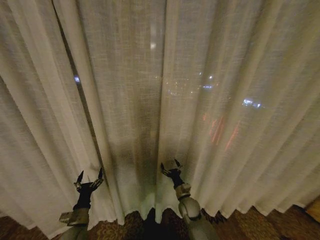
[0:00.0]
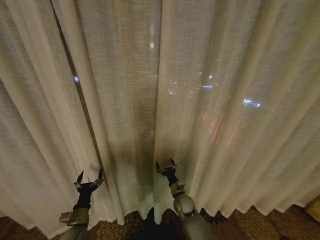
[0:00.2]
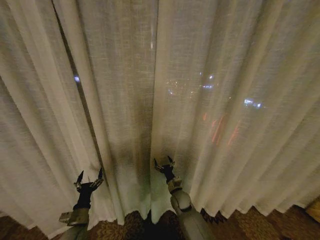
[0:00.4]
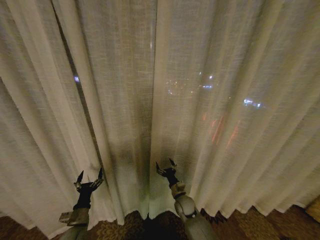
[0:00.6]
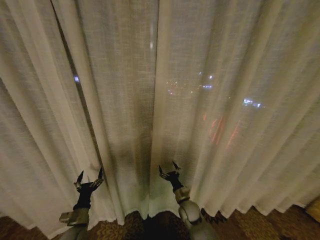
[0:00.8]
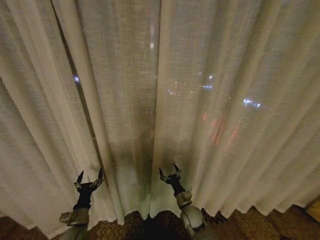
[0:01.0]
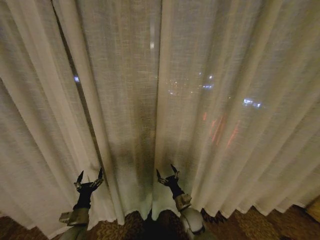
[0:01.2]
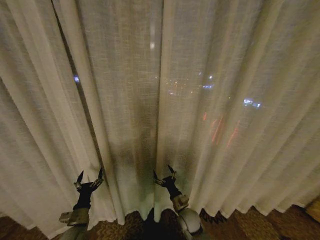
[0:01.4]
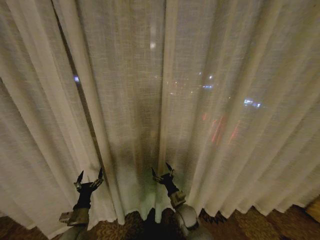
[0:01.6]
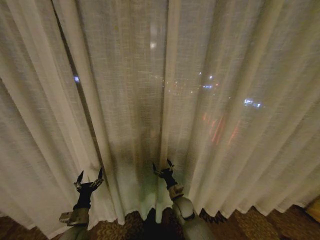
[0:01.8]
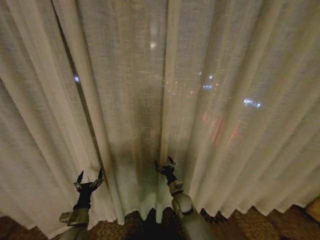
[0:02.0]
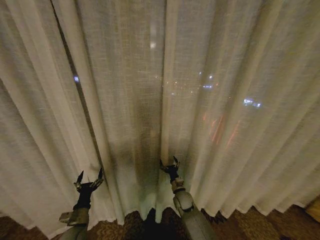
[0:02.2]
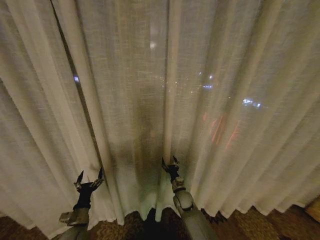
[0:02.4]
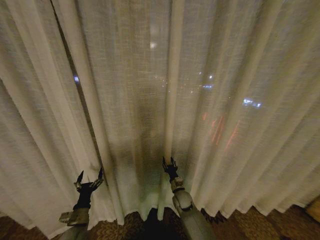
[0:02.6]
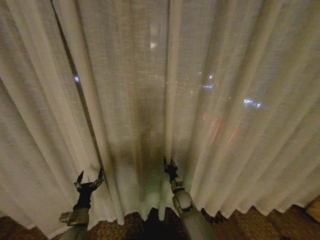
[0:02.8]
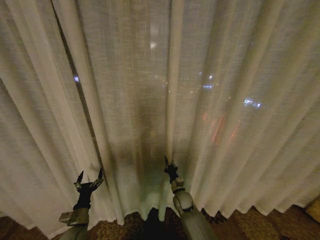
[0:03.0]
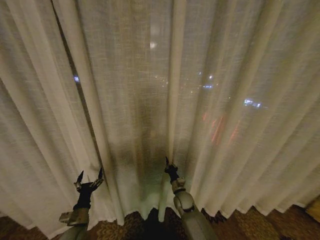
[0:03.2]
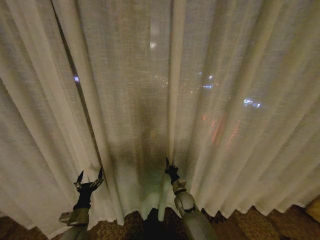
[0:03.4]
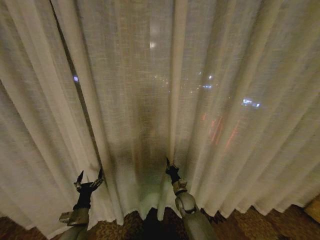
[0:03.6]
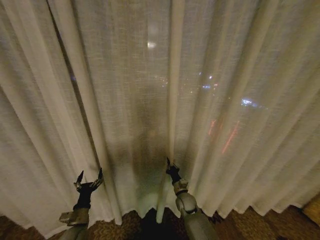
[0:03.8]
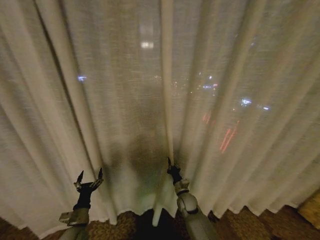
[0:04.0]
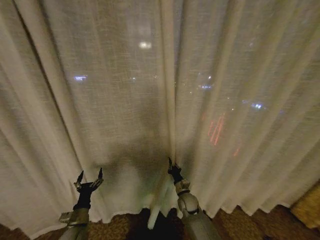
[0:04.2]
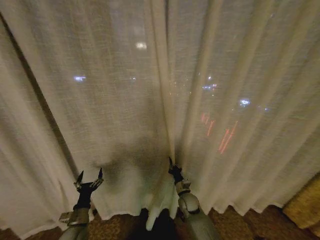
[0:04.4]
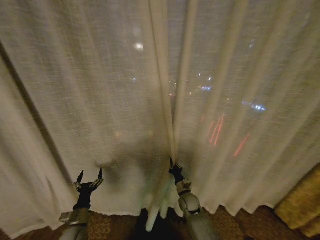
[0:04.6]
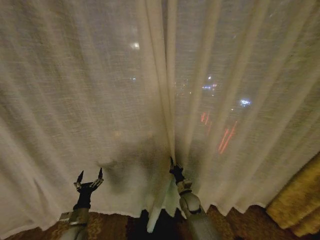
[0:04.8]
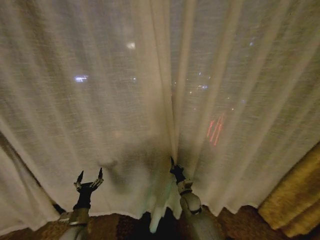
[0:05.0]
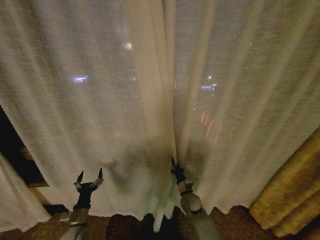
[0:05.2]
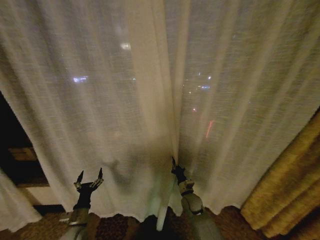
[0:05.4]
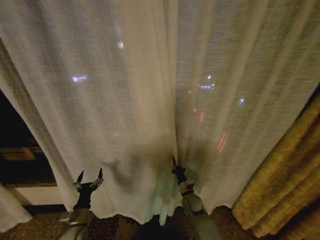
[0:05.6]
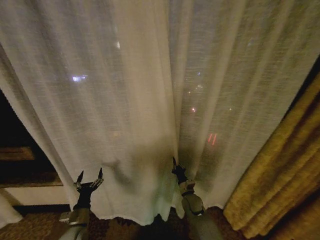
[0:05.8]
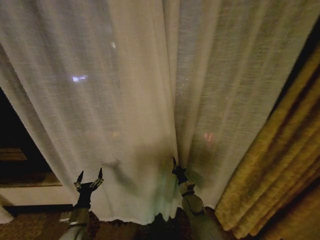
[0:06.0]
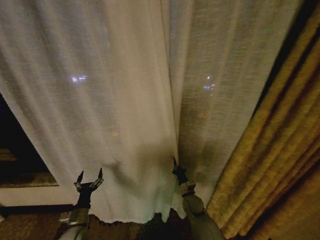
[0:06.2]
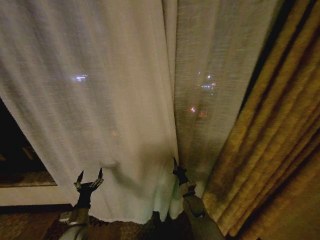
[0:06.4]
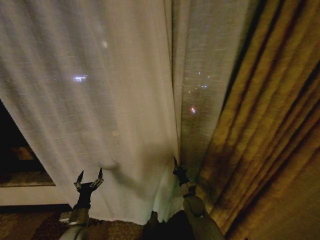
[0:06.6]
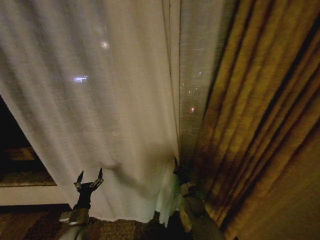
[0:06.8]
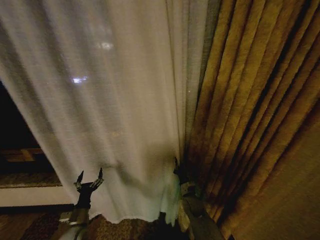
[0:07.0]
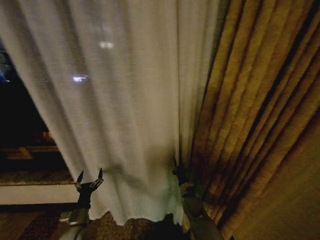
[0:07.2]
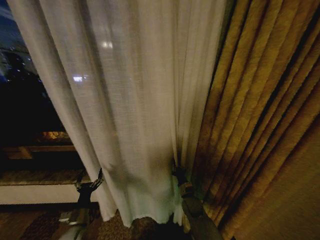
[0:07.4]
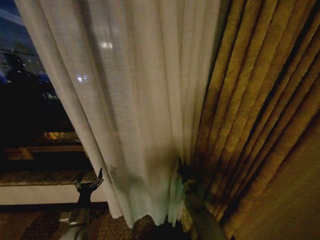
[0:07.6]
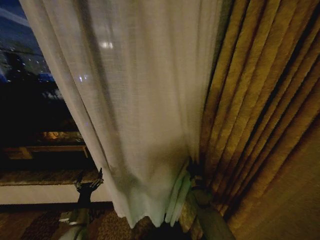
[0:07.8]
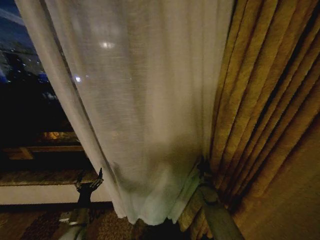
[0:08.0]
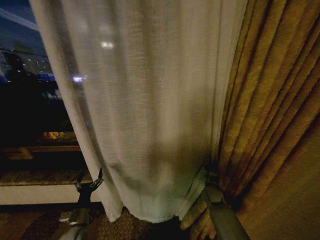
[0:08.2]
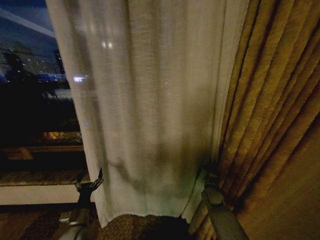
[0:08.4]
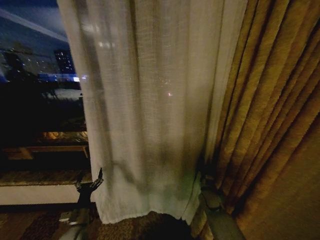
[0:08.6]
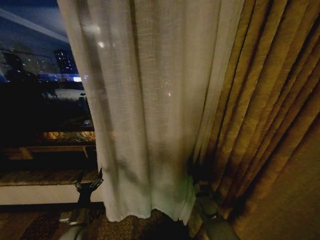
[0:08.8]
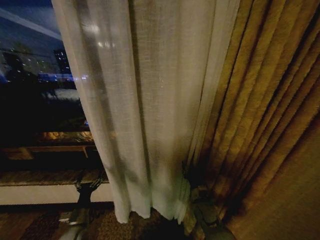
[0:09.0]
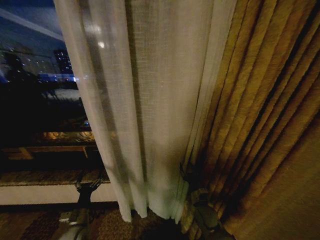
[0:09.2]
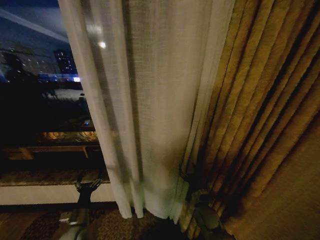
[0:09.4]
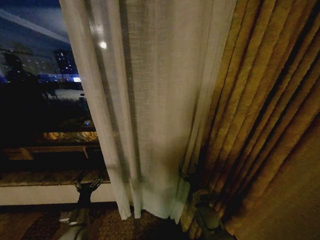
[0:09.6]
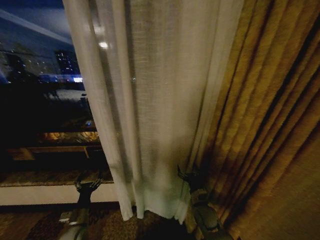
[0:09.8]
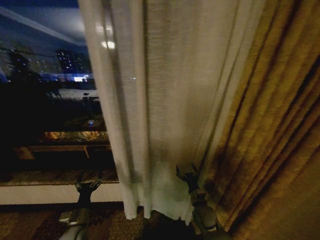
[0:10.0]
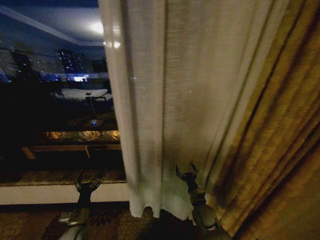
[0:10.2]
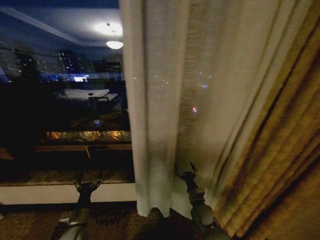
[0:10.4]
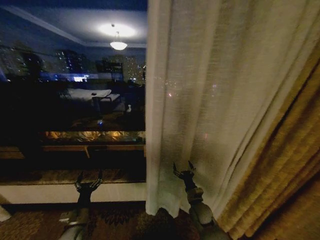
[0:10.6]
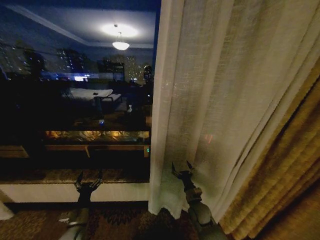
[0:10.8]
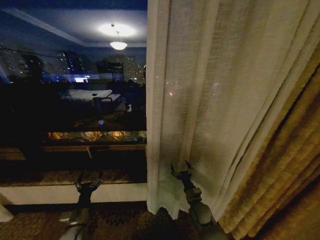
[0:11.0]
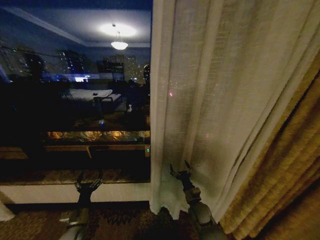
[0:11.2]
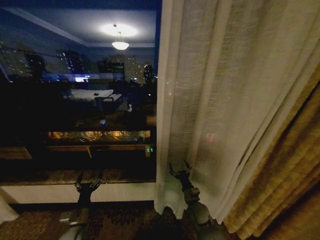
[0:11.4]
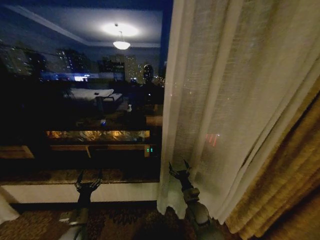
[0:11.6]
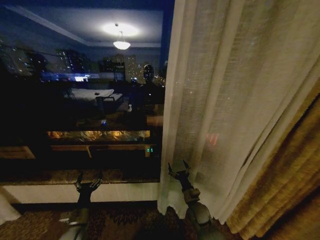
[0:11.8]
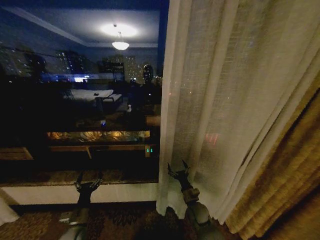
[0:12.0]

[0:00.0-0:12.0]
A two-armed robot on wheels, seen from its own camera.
Task of the whole recording: Open the curtains by pulling them apart, changing their state from closed to fully open.
0:00.0 to 0:01.6: The grippers move only a little.
0:01.6 to 0:03.0: The right gripper goes roughly 5 cm forward, and closes its fingers.
0:03.0 to 0:04.4: The grippers move only a little.
0:07.6 to 0:09.0: The right gripper is displaced backward by roughly 5 cm, travels to the right and back again, about 10 cm each way, and opens.
0:09.0 to 0:10.4: The right gripper opens.

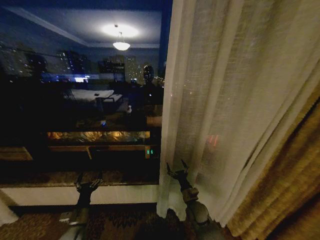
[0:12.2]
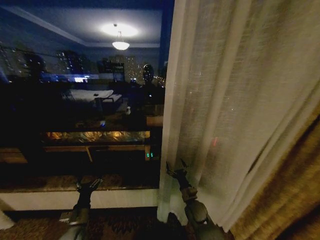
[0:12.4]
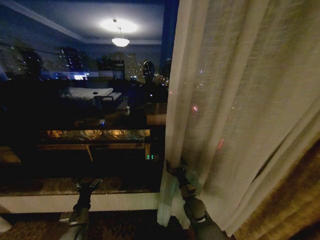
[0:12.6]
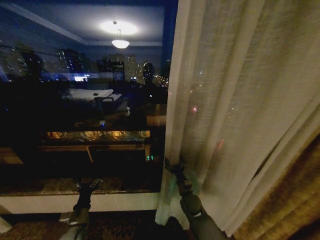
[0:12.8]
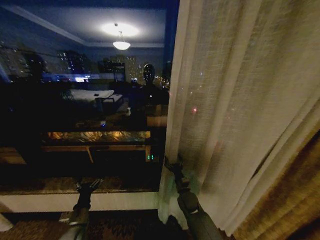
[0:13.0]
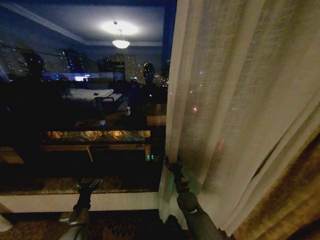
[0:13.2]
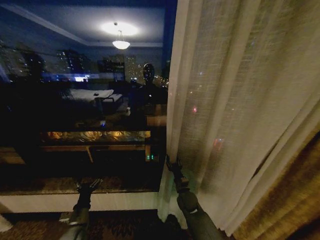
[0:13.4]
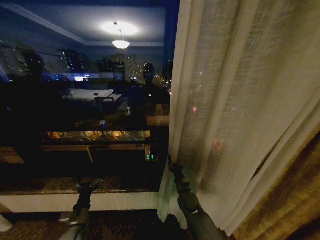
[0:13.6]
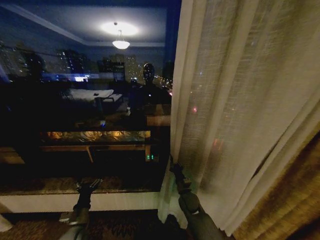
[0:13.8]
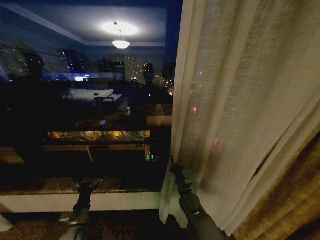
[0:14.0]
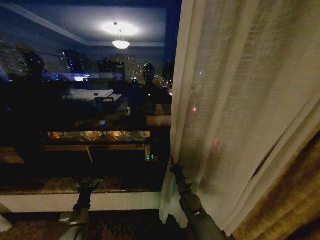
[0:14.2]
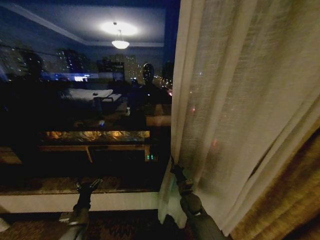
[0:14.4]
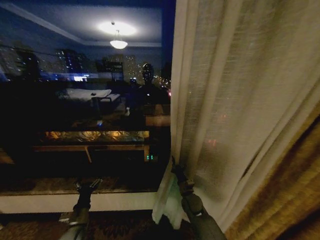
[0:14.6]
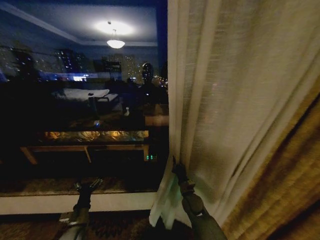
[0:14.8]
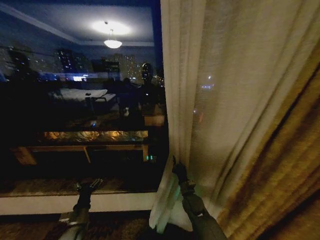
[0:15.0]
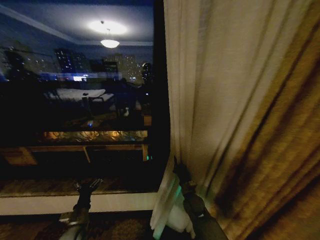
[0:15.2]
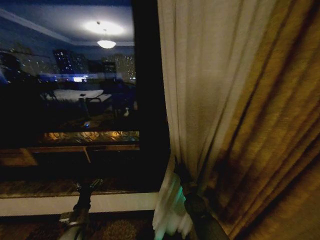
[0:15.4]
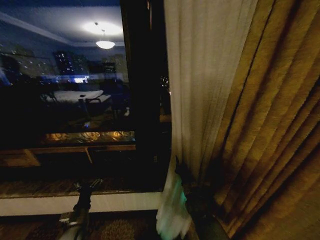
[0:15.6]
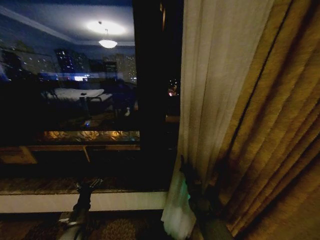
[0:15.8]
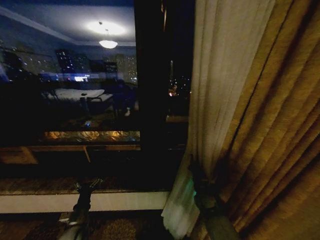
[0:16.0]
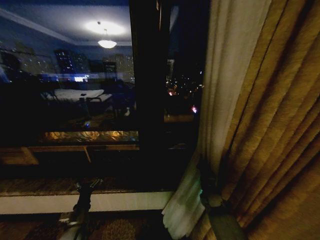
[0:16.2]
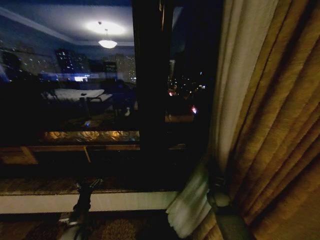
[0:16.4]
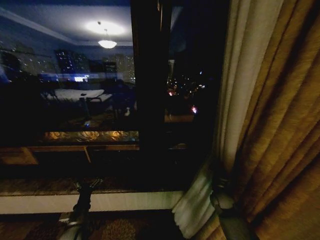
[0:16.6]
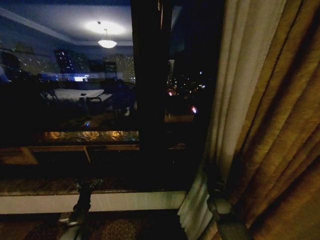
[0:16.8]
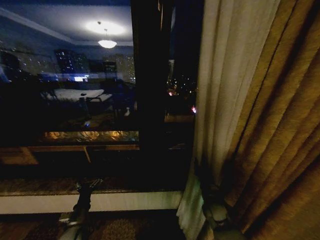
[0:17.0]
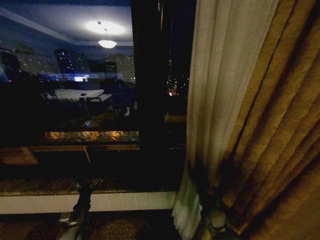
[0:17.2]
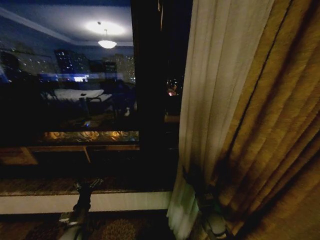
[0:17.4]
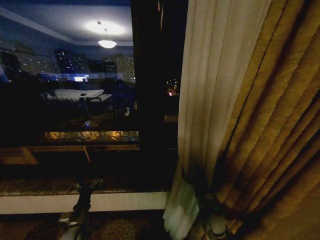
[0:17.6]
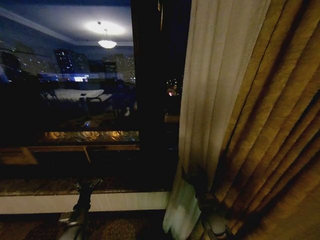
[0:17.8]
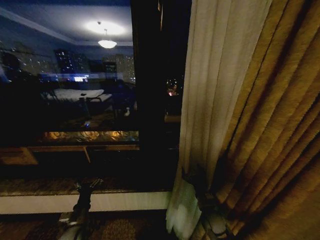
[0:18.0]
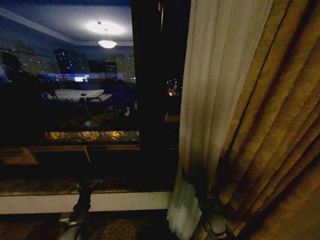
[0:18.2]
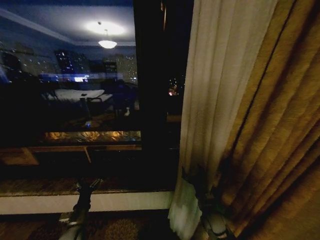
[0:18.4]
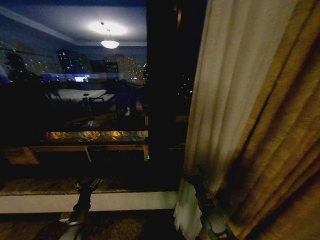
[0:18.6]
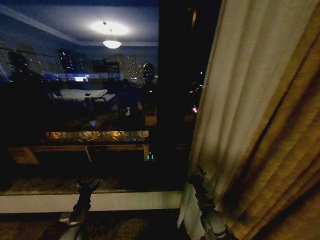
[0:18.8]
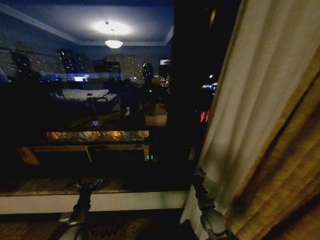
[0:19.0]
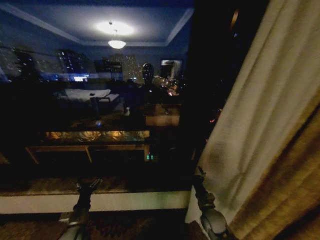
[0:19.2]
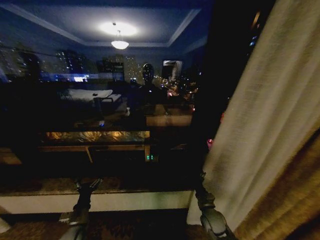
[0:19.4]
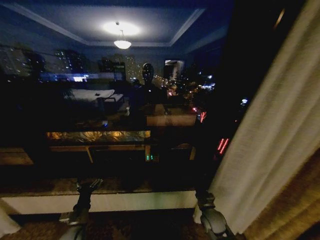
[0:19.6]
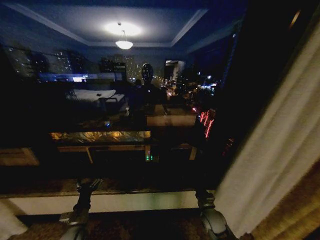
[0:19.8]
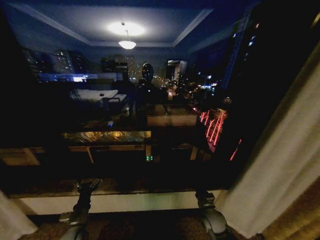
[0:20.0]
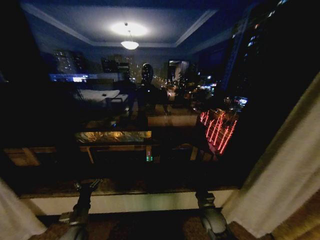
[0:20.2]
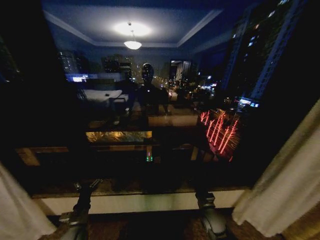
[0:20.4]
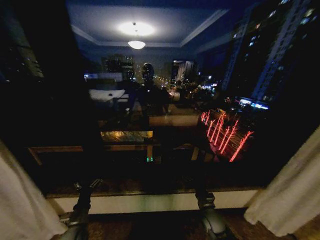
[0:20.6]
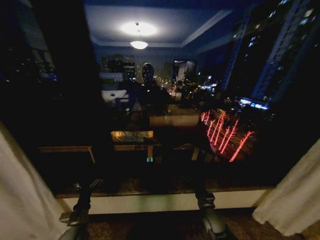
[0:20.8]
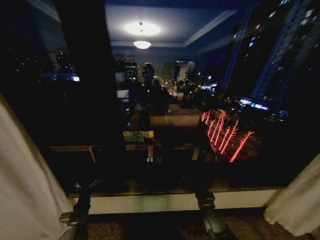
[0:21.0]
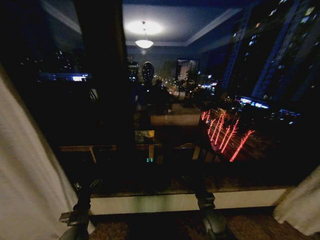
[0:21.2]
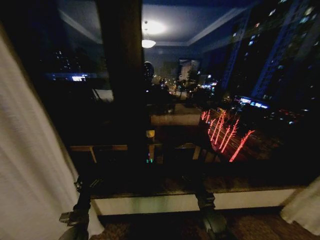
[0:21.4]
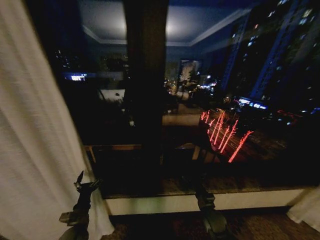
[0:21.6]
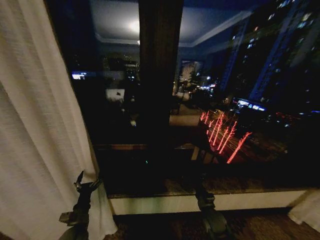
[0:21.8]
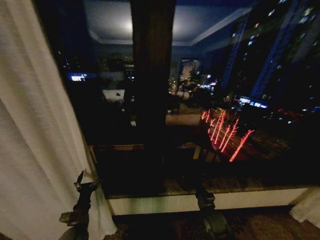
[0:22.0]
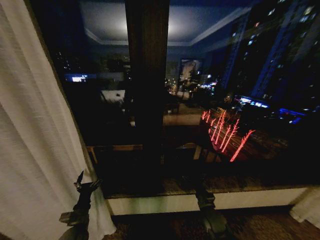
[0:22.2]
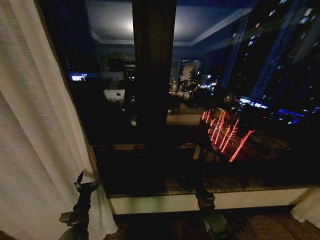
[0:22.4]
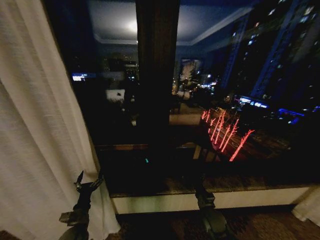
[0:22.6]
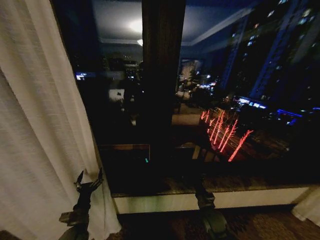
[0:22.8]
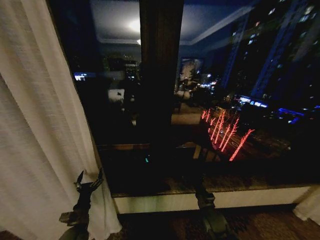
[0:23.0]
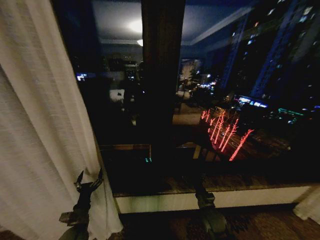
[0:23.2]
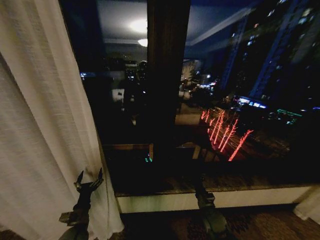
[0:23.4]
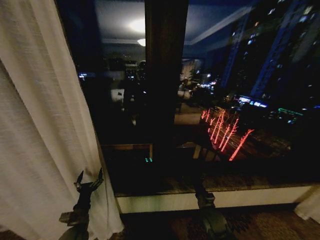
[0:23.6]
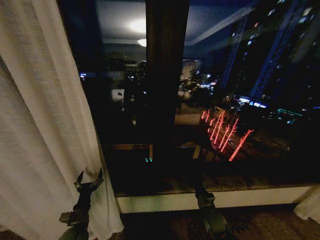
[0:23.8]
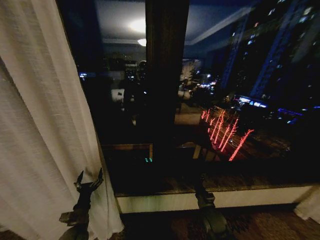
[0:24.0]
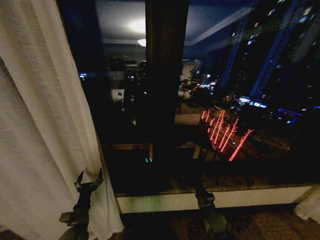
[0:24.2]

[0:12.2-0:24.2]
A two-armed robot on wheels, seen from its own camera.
Task of the whole recording: Open the curtains by pulling them apart, changing their state from closed to fully open.
0:12.2 to 0:13.8: The right gripper shifts by approximately 5 cm, and closes.
0:15.2 to 0:16.6: The right gripper travels to the right by some 15 cm.
0:16.6 to 0:18.2: The right gripper travels to the left and backward by some 10 cm, and opens up.
0:22.6 to 0:24.2: Neither gripper changes place.
